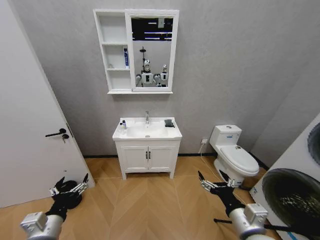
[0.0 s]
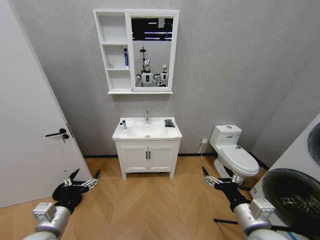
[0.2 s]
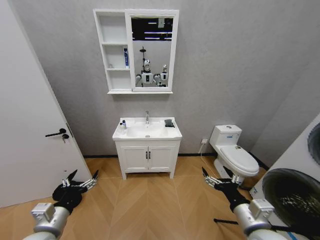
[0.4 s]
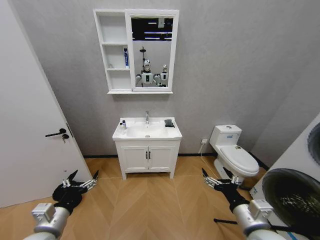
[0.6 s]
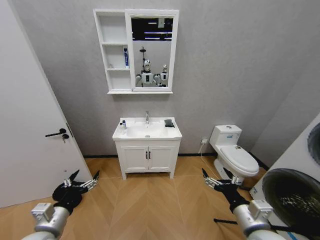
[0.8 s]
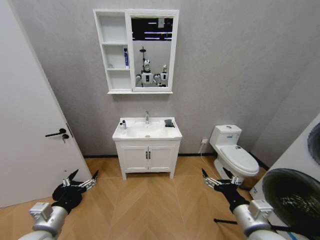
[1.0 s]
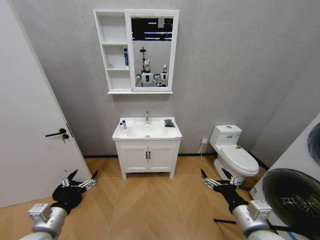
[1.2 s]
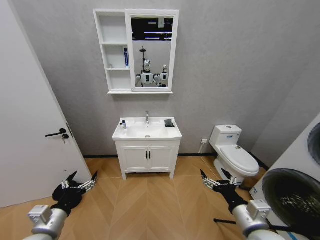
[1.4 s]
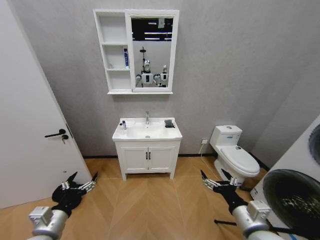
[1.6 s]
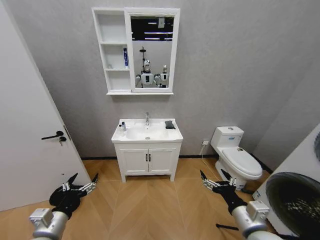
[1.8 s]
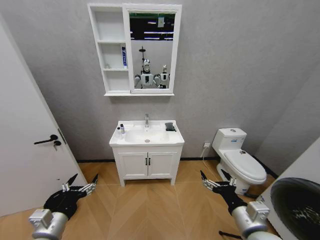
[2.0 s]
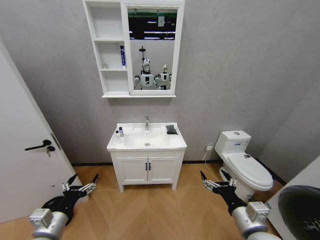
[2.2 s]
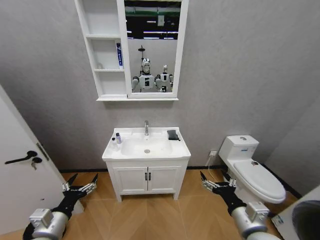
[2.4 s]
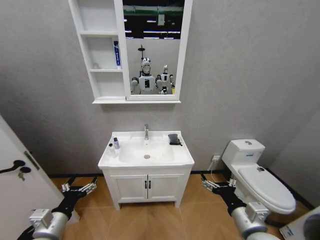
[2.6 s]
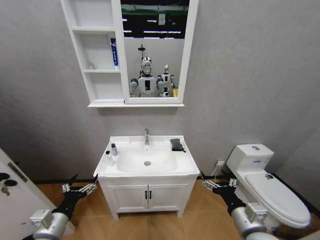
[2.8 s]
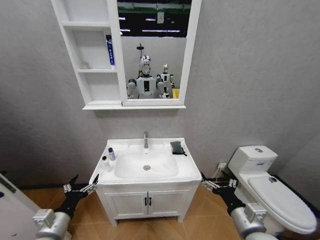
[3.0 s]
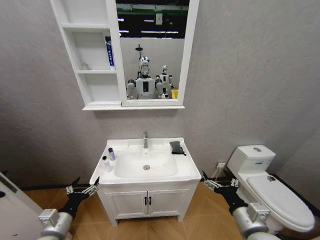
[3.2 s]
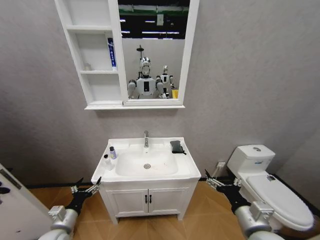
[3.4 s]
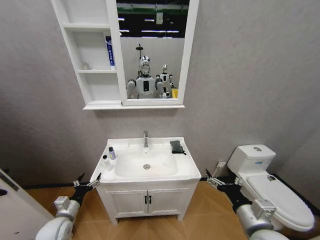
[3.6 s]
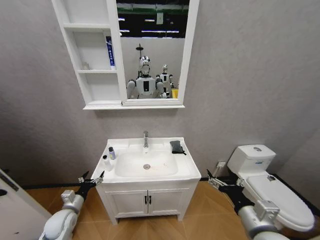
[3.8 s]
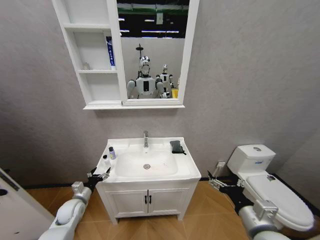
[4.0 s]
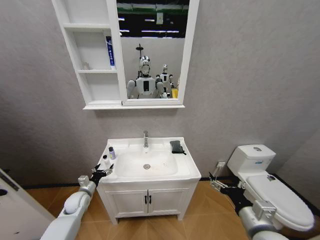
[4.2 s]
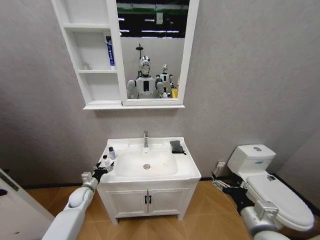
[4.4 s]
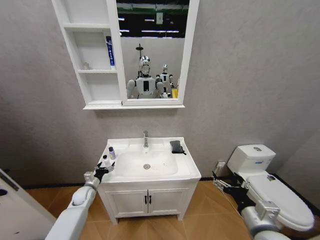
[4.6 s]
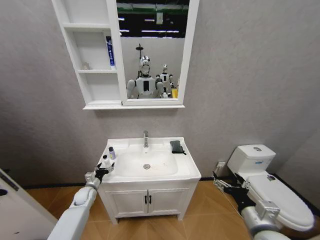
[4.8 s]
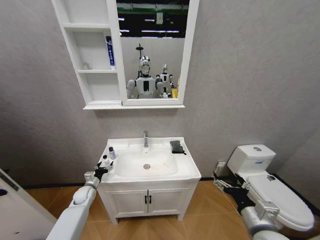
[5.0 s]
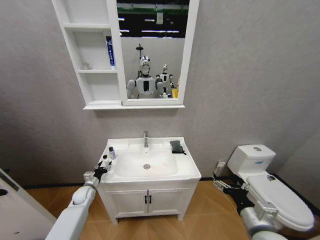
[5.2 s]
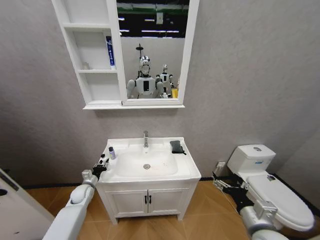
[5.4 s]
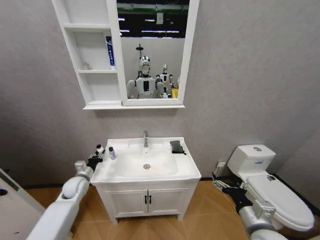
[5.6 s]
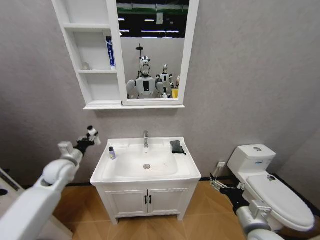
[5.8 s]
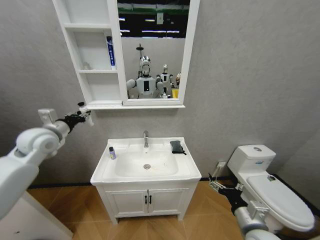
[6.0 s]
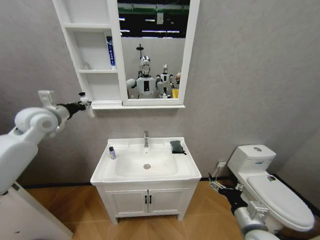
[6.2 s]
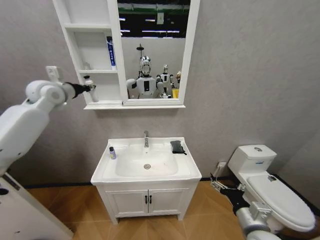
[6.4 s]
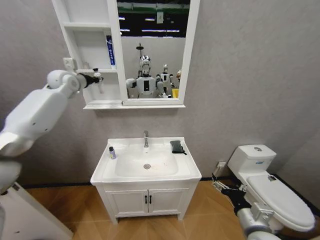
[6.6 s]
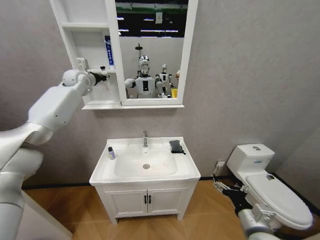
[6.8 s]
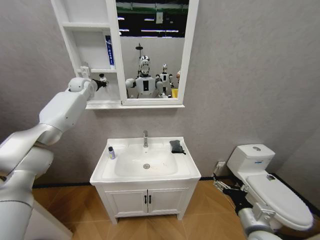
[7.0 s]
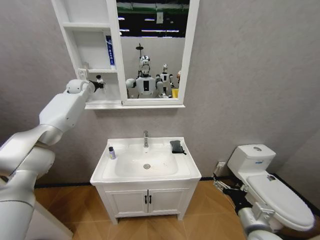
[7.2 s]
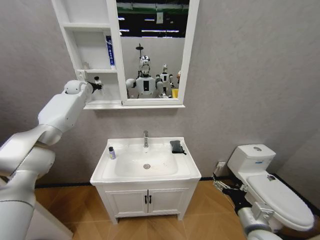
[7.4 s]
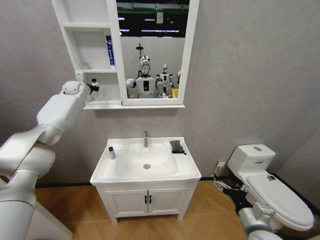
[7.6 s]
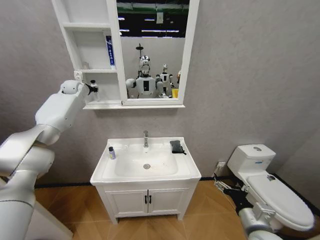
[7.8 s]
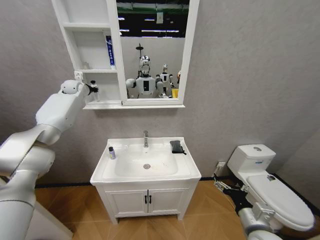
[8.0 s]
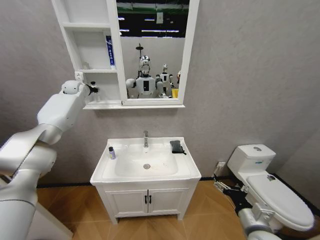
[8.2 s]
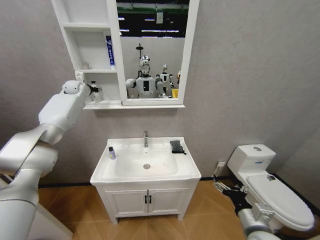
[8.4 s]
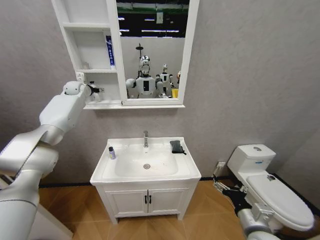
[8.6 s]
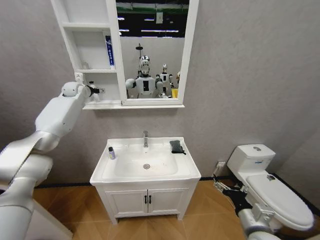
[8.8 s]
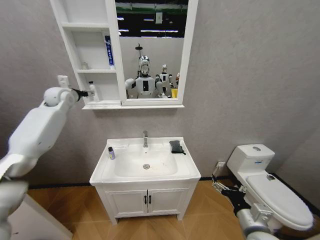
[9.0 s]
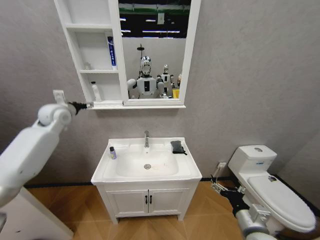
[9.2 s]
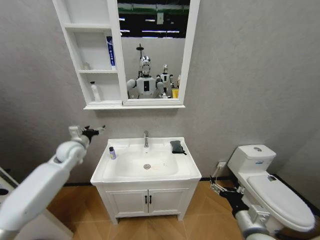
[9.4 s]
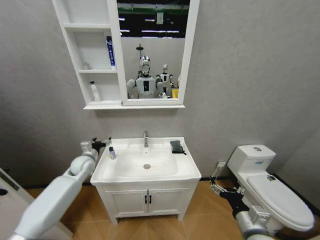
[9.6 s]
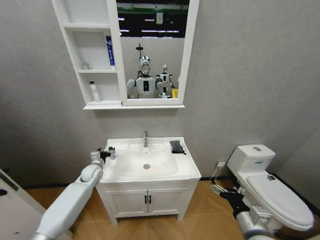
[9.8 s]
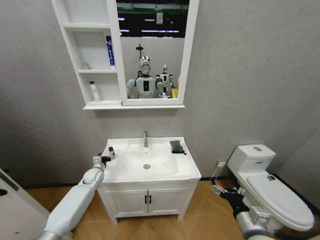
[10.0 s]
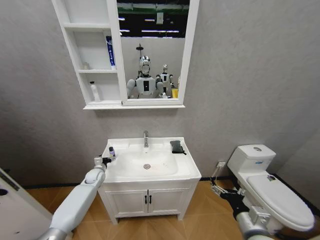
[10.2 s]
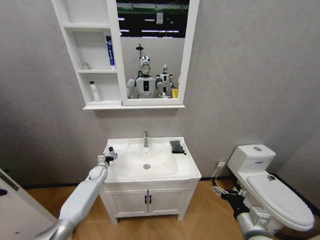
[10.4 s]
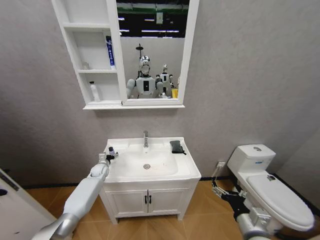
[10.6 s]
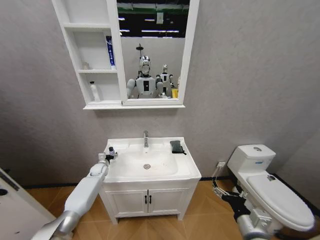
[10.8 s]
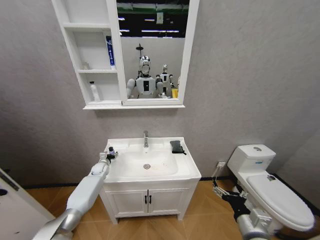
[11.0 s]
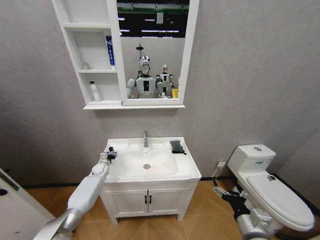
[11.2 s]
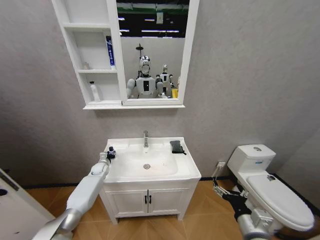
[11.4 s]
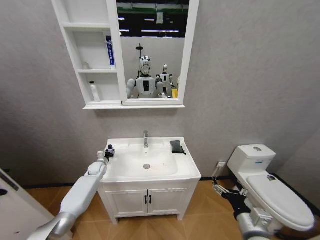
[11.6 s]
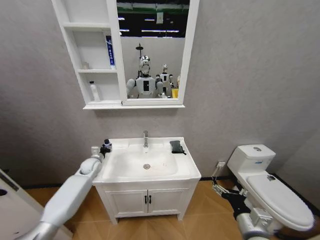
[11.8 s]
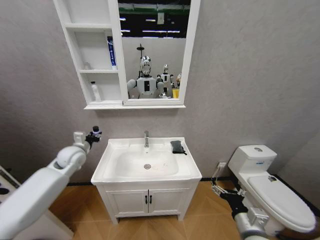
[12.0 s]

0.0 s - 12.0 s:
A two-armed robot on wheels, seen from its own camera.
Task of the whole recording: Move facial cleanser and shampoo from washbasin to cabinet, then wipe washbasin with towel.
3.0 s - 4.4 s: The left gripper moves forward and downward, approximately 25 cm.
4.4 s - 6.0 s: The left gripper moves upward, roughly 35 cm, and closes up.
6.0 s - 7.6 s: The left gripper heads forward and upward, covering some 30 cm.
7.6 s - 9.0 s: The left gripper goes roughly 10 cm backward, and opens its fingers.
9.0 s - 10.4 s: The left gripper heads downward, covering some 40 cm.
10.4 s - 12.0 s: The left gripper is displaced upward by approximately 20 cm, and closes its fingers.

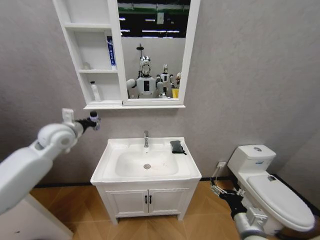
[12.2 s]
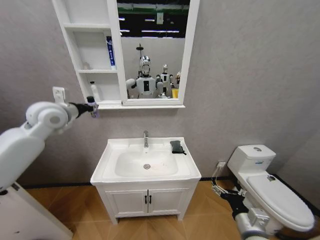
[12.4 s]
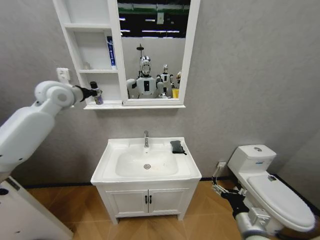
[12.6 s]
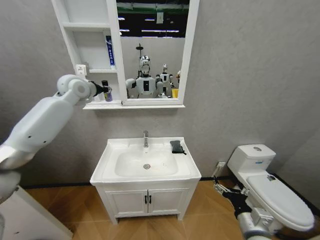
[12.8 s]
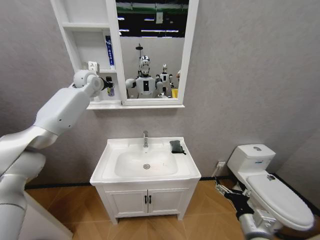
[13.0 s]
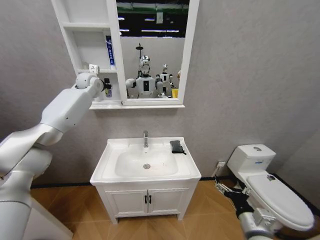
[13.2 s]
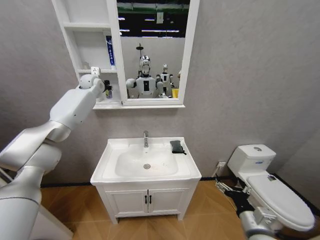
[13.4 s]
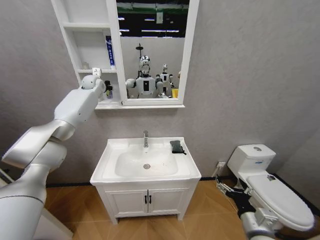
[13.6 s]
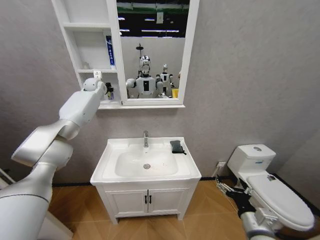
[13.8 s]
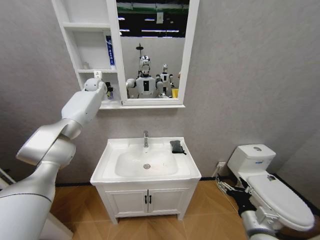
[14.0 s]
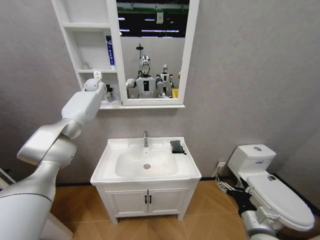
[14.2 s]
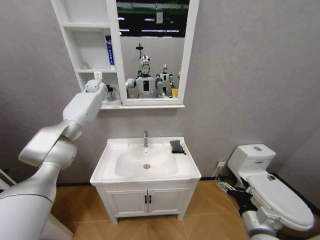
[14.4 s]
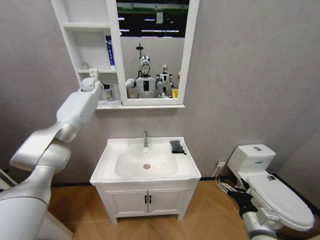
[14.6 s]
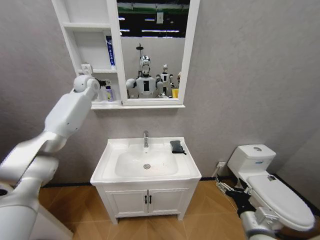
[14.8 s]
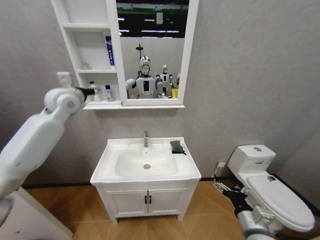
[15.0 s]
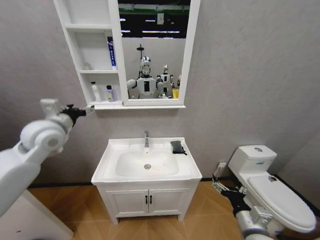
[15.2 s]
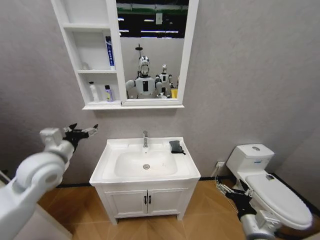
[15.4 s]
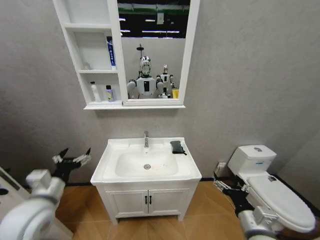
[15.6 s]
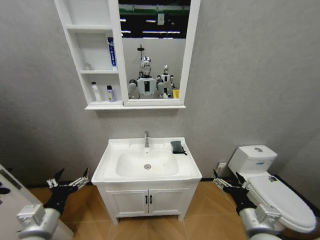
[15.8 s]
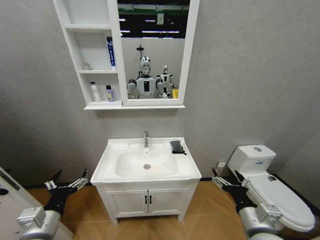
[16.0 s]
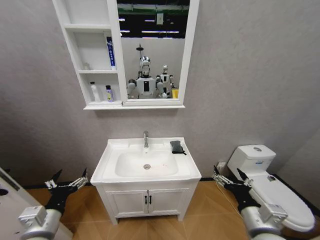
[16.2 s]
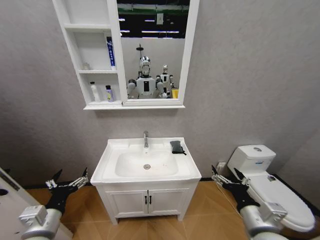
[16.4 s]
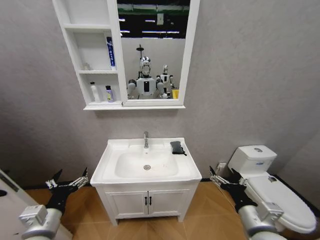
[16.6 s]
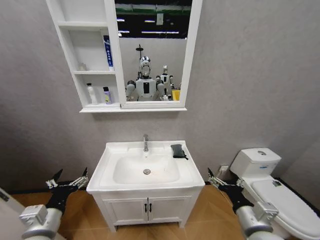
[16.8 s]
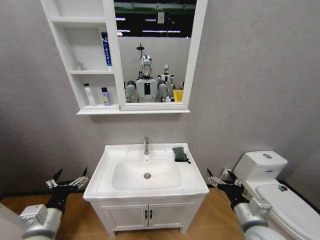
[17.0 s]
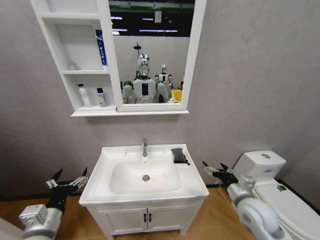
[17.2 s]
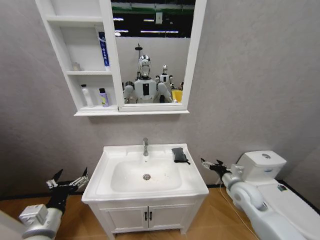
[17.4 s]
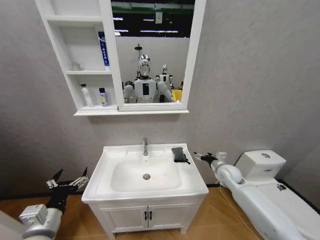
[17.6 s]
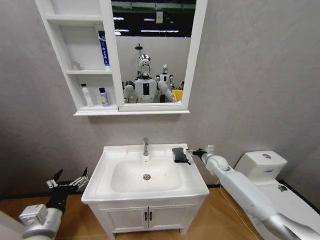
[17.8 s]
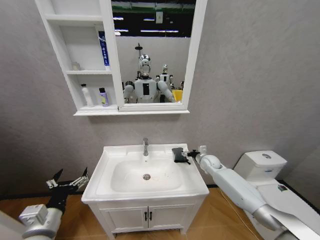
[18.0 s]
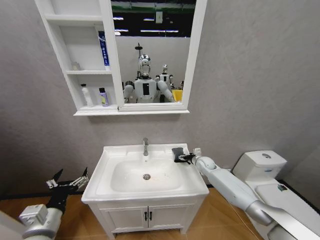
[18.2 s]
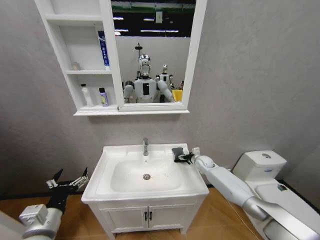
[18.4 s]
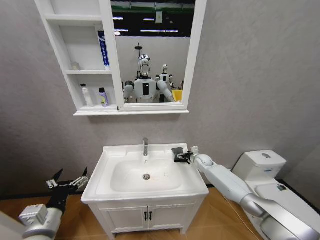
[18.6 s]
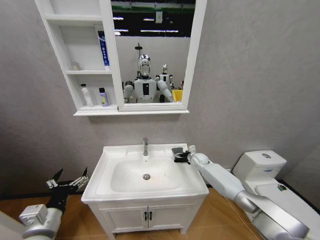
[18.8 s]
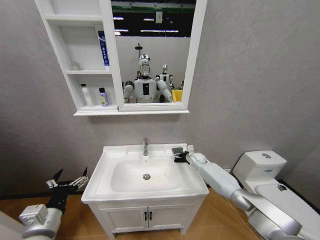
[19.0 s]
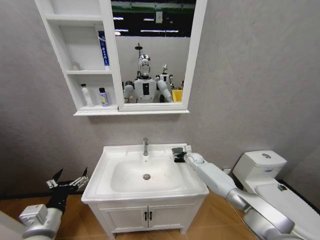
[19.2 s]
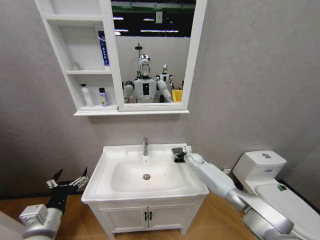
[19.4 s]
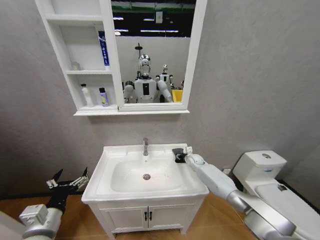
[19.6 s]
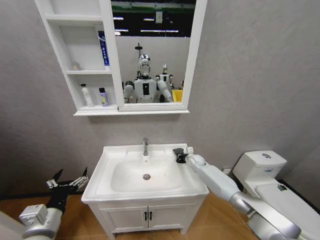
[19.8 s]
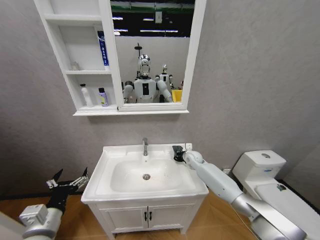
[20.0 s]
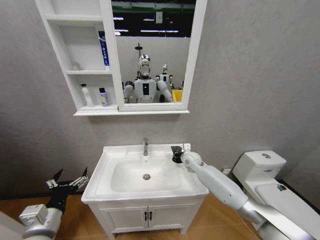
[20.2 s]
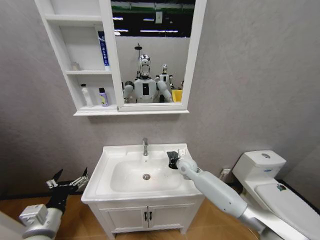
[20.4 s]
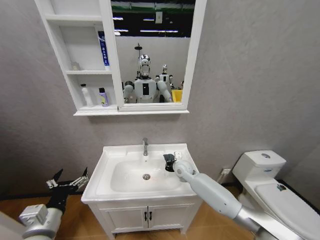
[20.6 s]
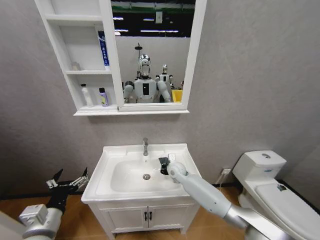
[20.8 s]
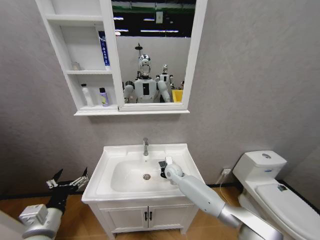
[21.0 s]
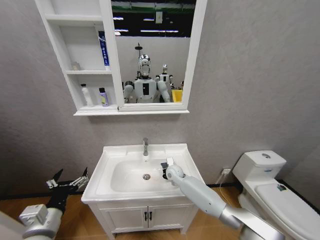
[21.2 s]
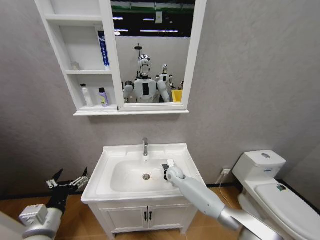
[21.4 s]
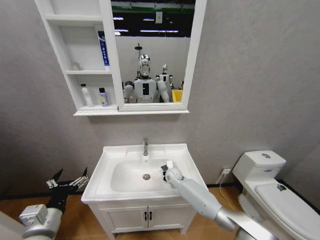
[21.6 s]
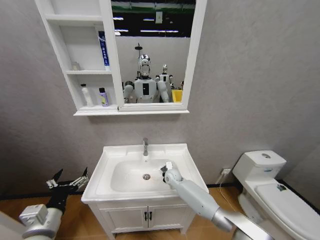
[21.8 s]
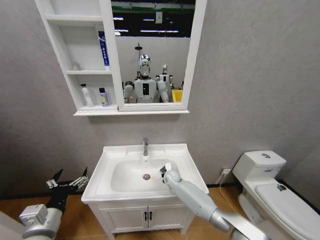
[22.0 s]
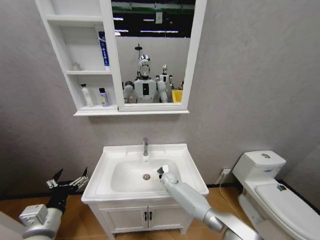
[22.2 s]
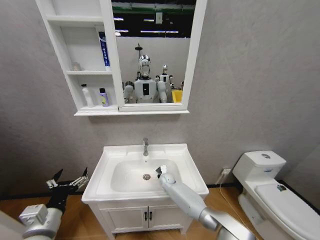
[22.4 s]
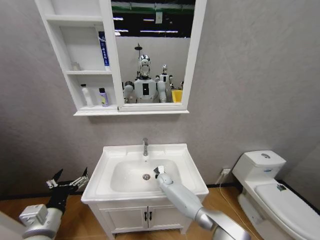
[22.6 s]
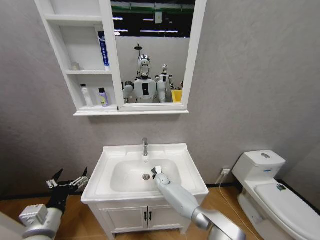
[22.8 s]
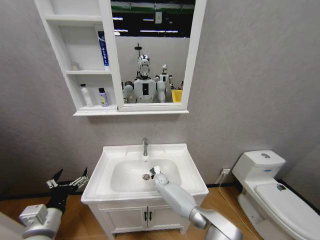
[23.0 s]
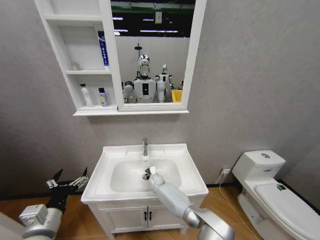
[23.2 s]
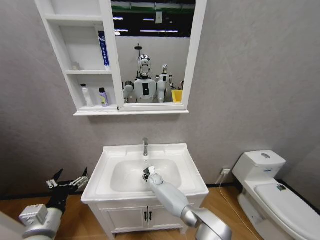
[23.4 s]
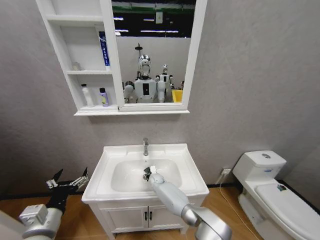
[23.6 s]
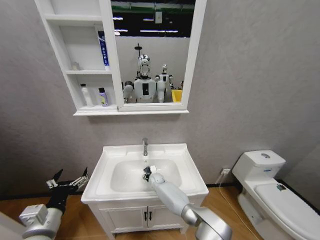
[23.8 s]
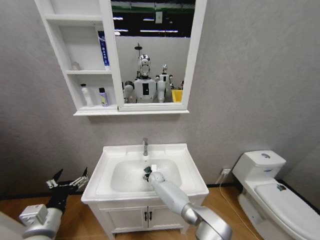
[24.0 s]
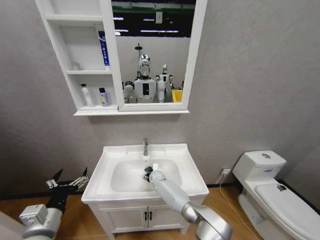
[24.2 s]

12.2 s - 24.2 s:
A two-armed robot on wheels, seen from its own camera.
Task of the whole recording: Move facial cleanser and shampoo from washbasin to cabinet, then wipe washbasin with towel.
12.2 s - 13.8 s: The left gripper is displaced forward and upward by some 30 cm.
13.8 s - 15.2 s: The left gripper moves backward, roughly 30 cm, and opens its fingers.
15.2 s - 16.6 s: The right gripper shifts about 5 cm upward, while the left gripper shifts approximately 35 cm backward and downward.
16.6 s - 18.2 s: The right gripper heads forward, covering some 35 cm.
18.2 s - 19.8 s: The right gripper changes place by some 5 cm, and closes up.
19.8 s - 21.2 s: The right gripper moves to the left and backward, approximately 15 cm.
21.2 s - 22.6 s: The right gripper is displaced downward and to the left by about 10 cm.
22.6 s - 24.2 s: The grippers make only small movements.
